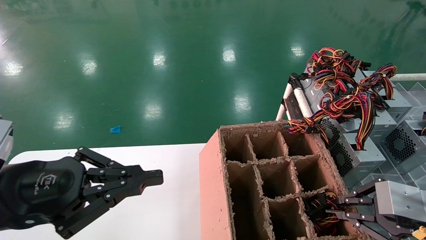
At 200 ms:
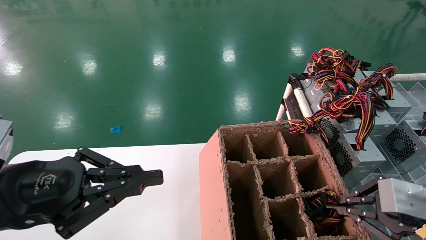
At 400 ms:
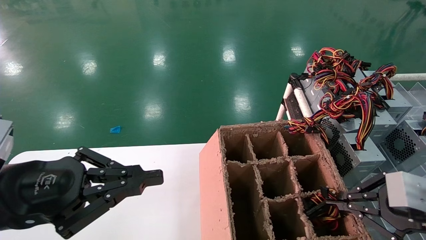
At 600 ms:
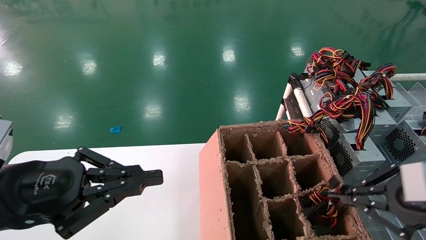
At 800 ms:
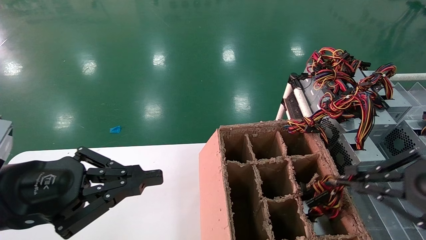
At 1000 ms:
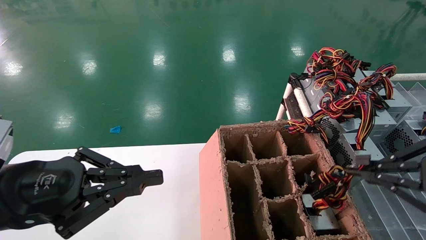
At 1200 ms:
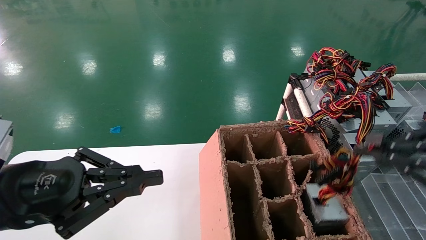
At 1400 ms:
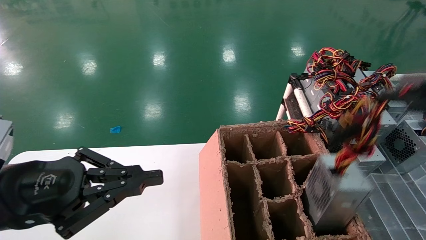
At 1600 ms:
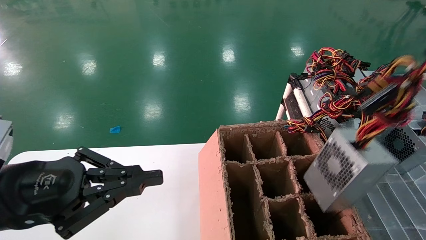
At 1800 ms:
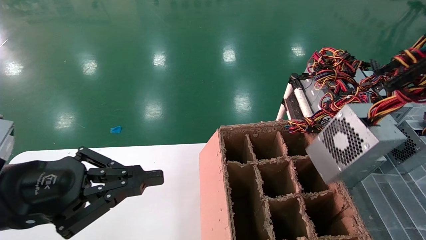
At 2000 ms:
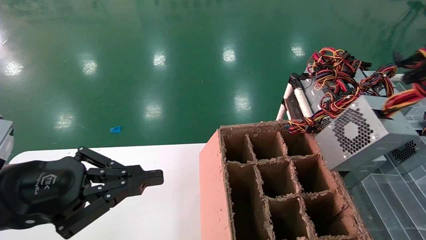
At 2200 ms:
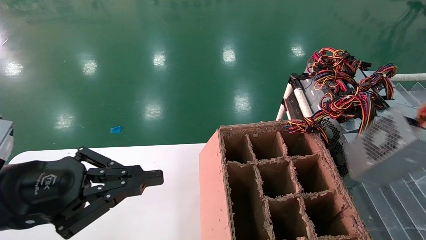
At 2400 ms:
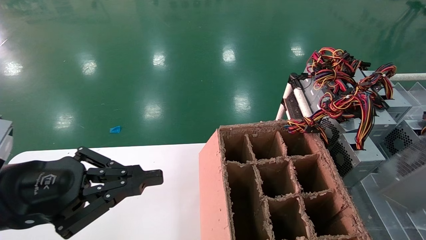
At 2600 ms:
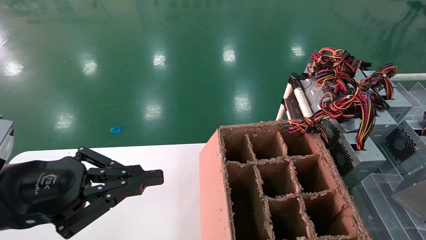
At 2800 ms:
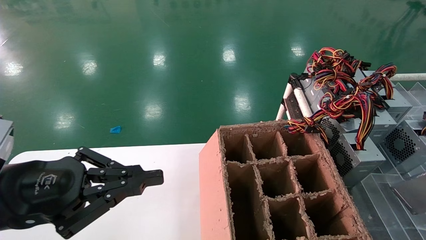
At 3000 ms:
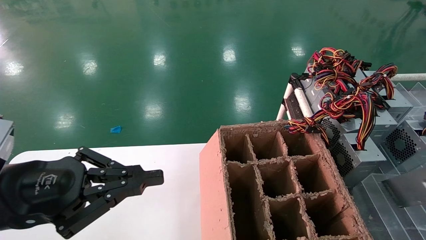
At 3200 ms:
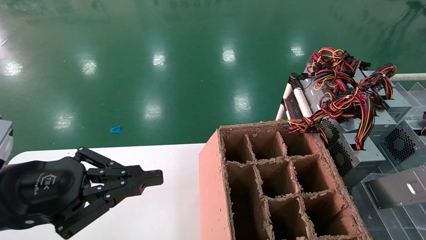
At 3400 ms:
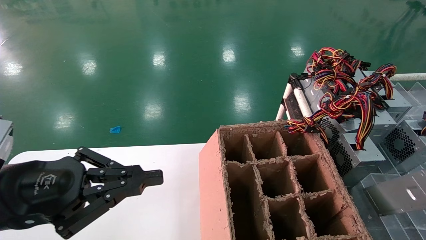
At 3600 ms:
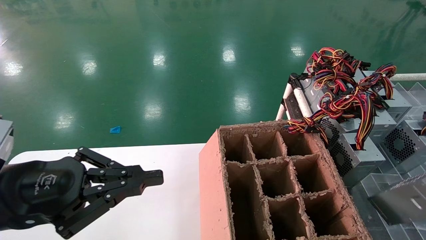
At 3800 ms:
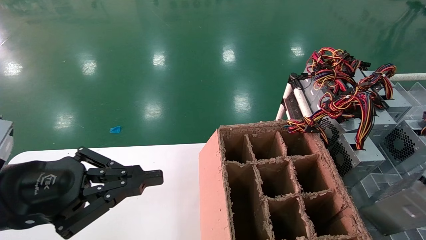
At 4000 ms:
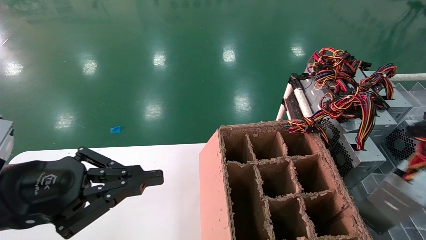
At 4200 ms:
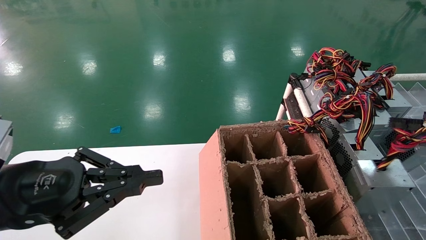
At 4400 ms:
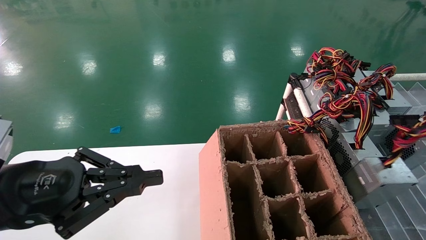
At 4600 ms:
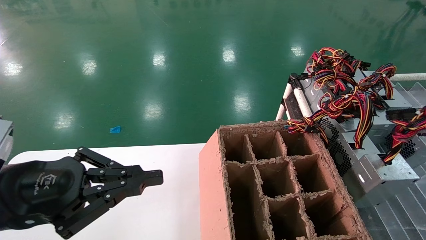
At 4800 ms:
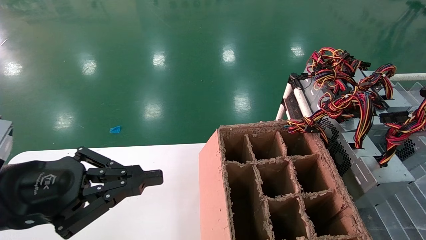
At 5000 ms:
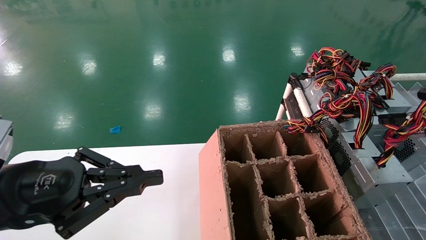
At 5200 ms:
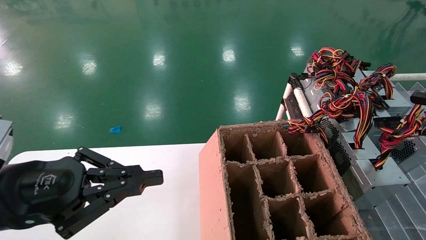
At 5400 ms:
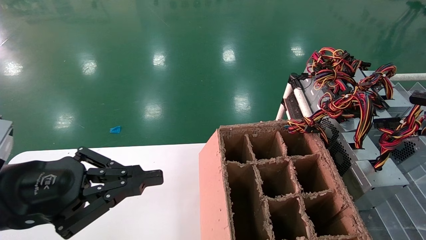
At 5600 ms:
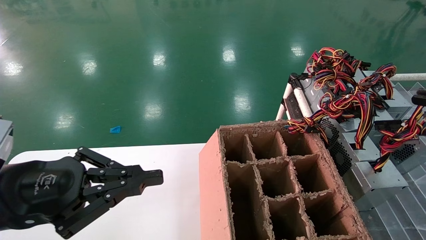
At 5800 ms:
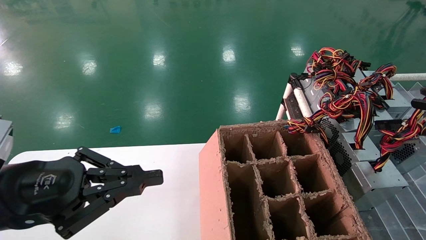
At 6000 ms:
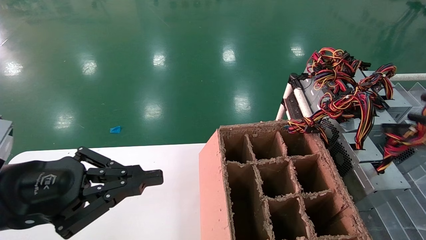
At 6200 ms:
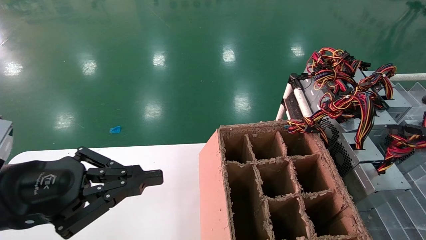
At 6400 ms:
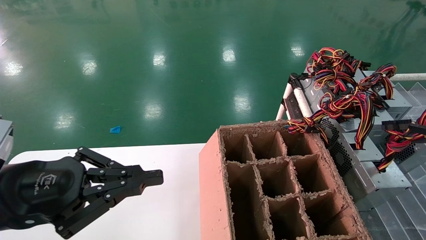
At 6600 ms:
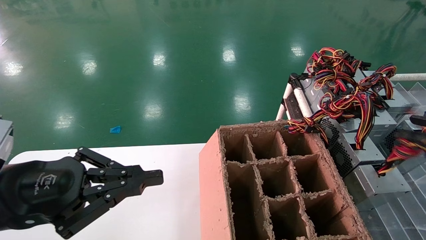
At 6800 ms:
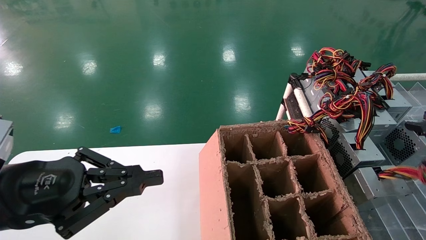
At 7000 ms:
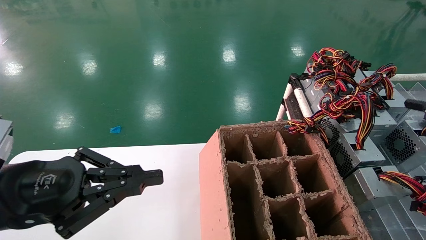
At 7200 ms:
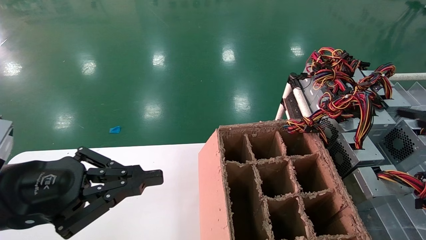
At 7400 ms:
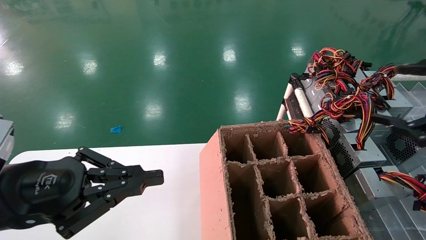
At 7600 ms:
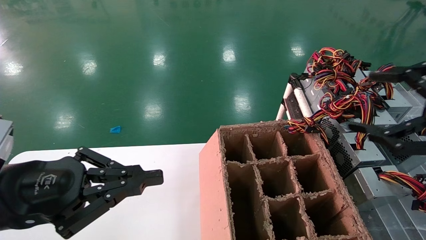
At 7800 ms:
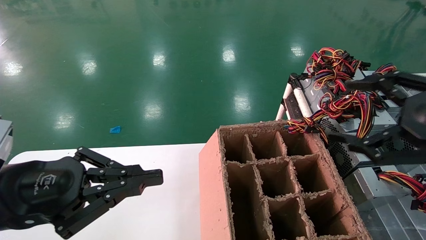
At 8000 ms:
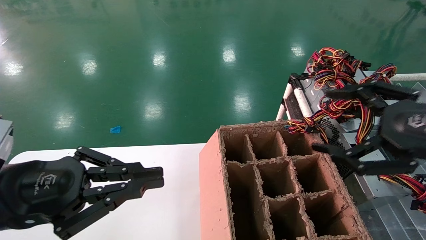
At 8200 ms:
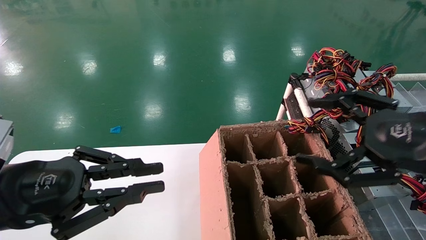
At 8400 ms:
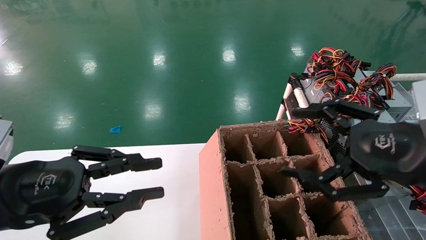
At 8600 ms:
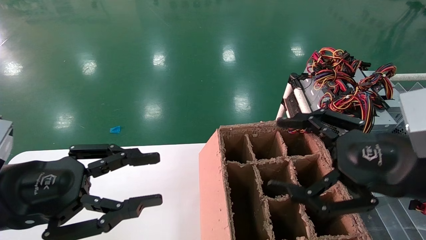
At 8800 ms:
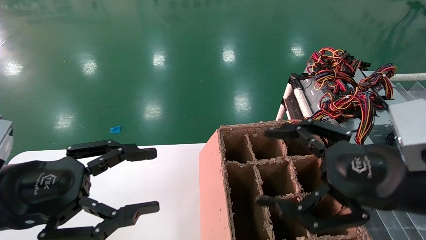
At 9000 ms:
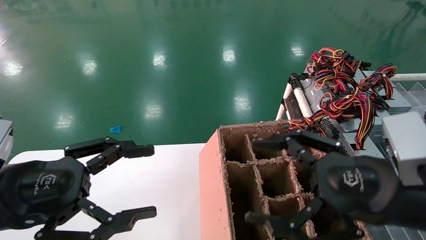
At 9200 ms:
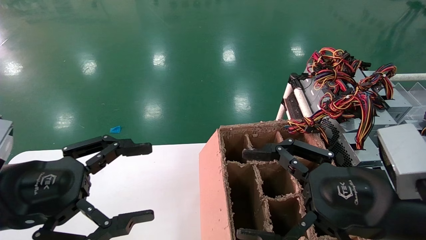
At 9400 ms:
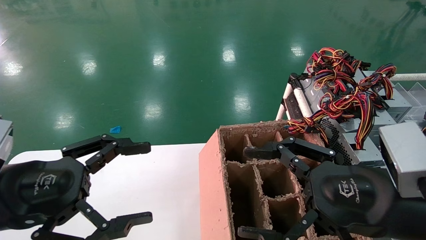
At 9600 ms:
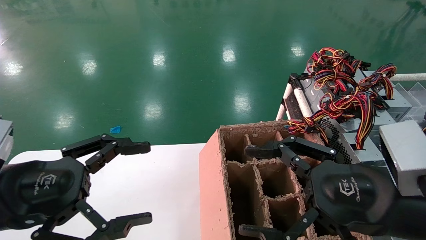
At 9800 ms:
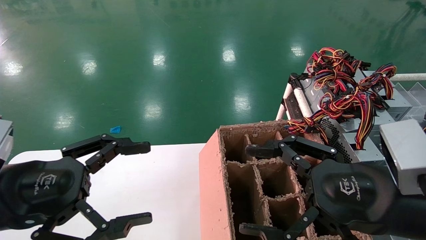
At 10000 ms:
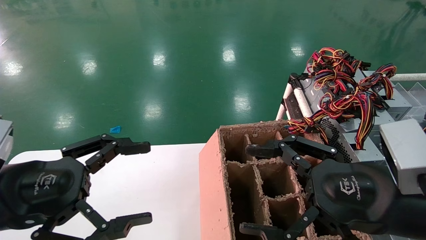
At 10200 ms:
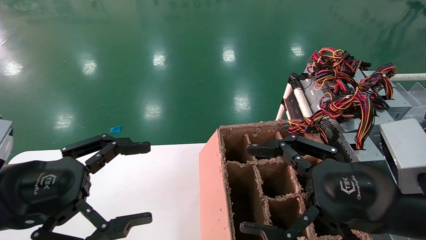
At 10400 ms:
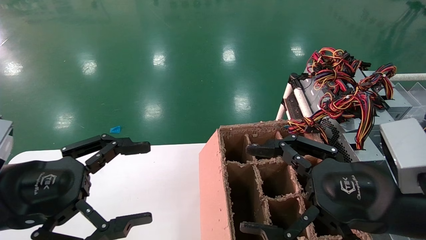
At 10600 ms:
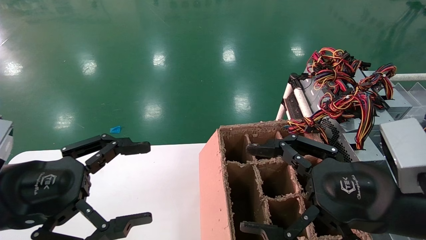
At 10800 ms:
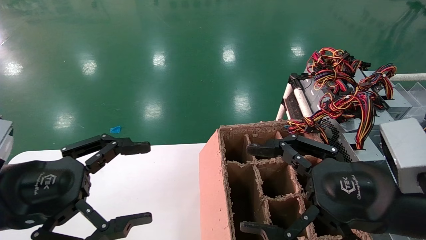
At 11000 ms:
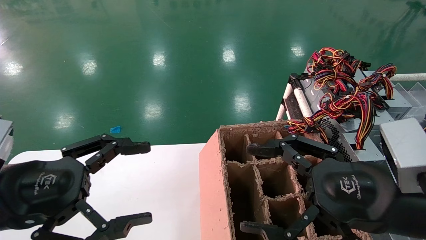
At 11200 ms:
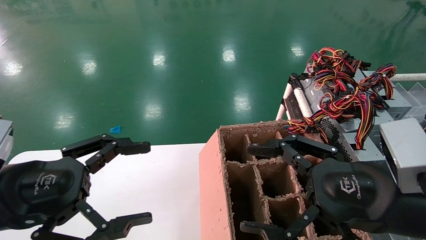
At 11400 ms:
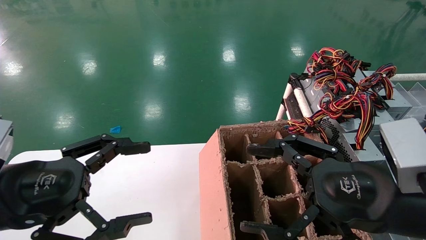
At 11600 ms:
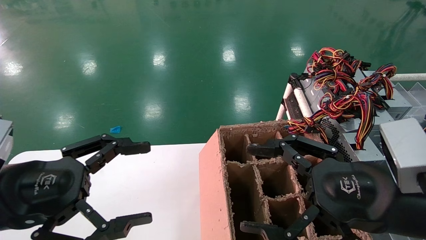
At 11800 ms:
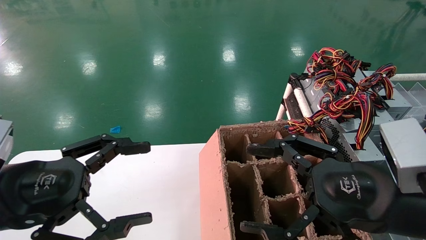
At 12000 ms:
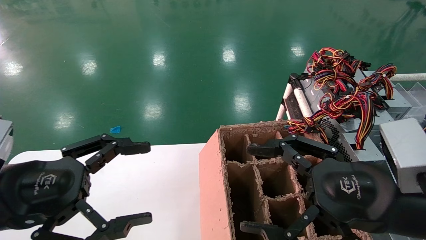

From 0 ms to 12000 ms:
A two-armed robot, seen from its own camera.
Step, from 200 ms to 7000 ms: Place the main unit power supply in the designated area.
From 0 ms to 1600 ms: The right gripper heads upward and backward, covering about 25 cm.
From 1600 ms to 3000 ms: The right gripper goes some 10 cm to the right.
From 3000 ms to 4400 ms: The right gripper heads forward, covering some 10 cm.
From 4400 ms to 6000 ms: The grippers make only small movements.
From 6000 ms to 7600 ms: The right gripper moves to the left, approximately 5 cm, and opens.
From 7600 ms to 9000 ms: The right gripper goes some 15 cm to the left and downward, while the left gripper opens.
From 9000 ms to 12000 ms: The two grippers keep their place.
